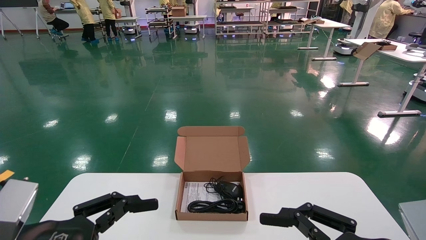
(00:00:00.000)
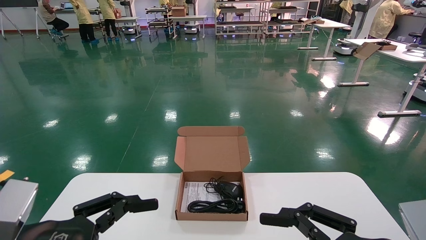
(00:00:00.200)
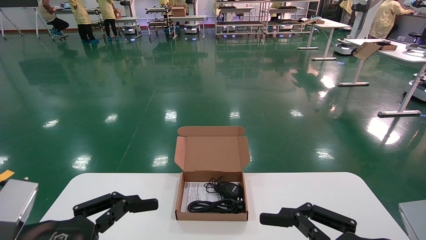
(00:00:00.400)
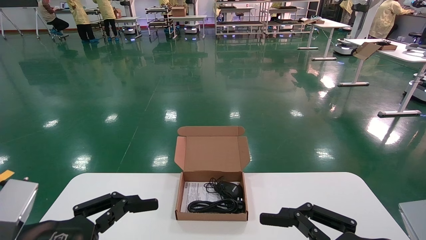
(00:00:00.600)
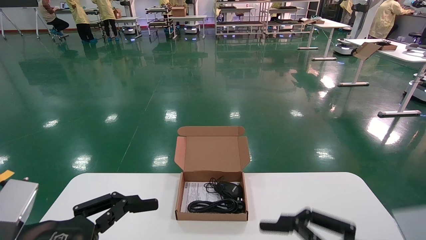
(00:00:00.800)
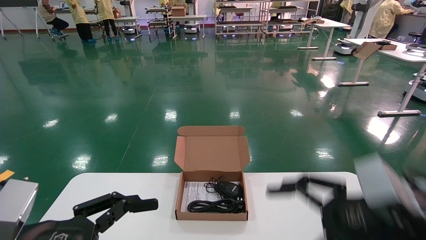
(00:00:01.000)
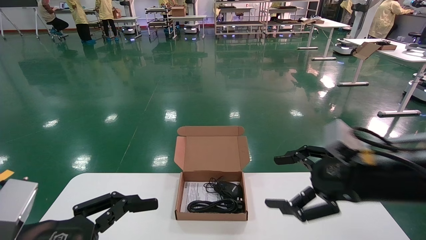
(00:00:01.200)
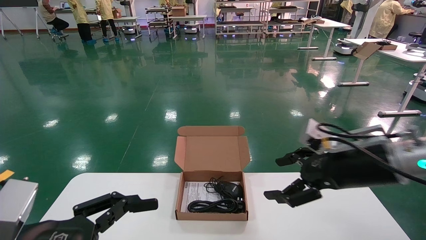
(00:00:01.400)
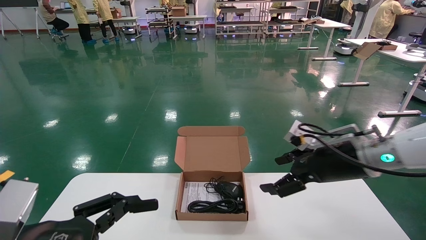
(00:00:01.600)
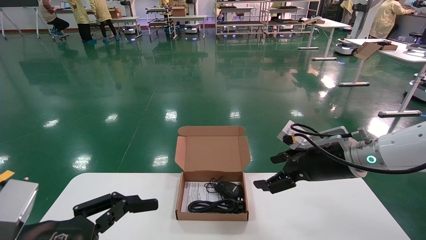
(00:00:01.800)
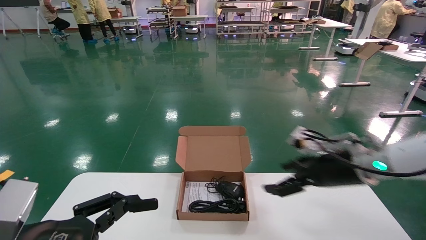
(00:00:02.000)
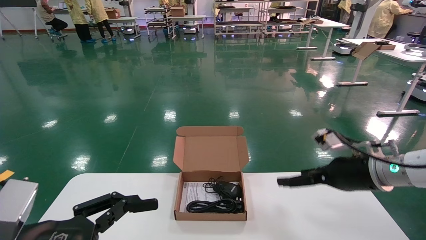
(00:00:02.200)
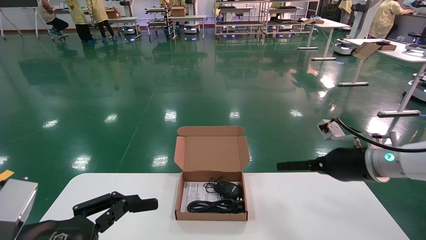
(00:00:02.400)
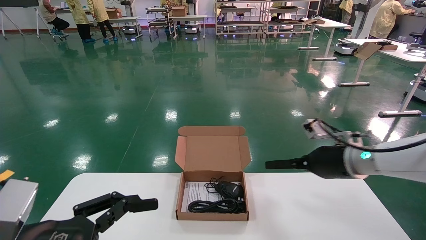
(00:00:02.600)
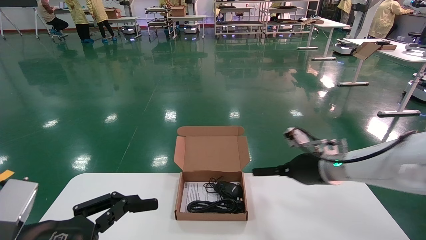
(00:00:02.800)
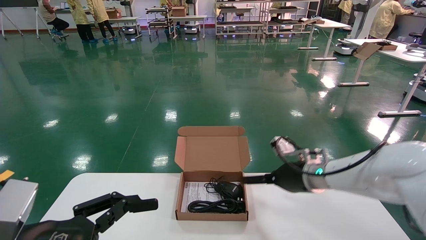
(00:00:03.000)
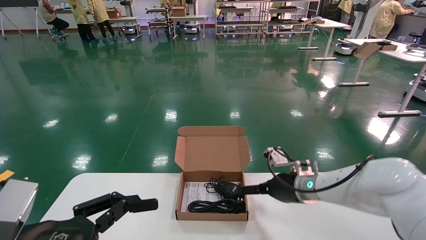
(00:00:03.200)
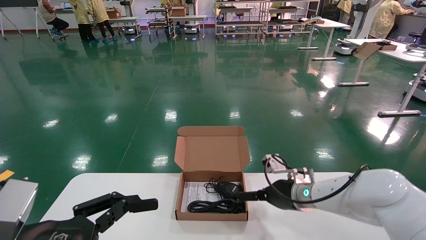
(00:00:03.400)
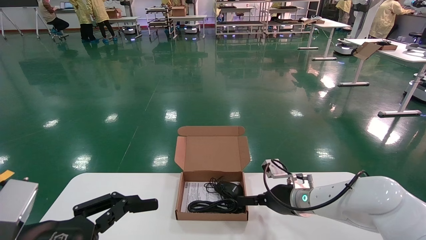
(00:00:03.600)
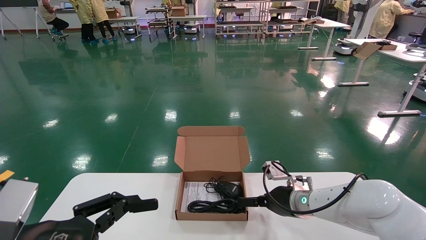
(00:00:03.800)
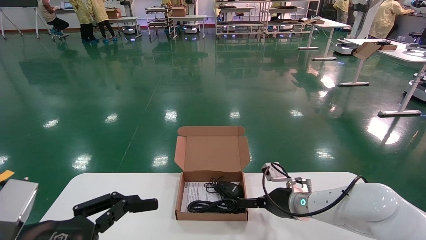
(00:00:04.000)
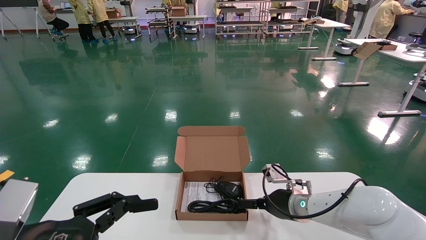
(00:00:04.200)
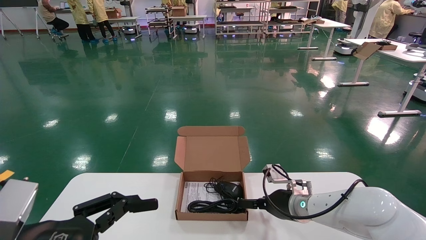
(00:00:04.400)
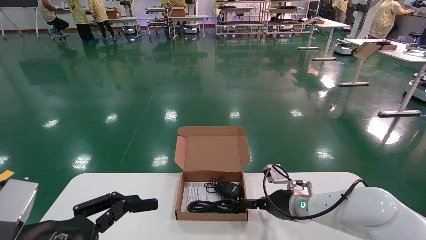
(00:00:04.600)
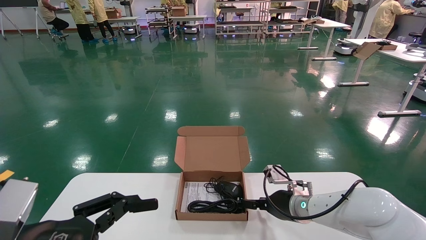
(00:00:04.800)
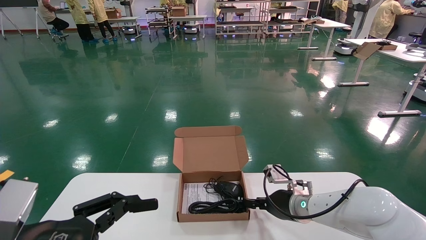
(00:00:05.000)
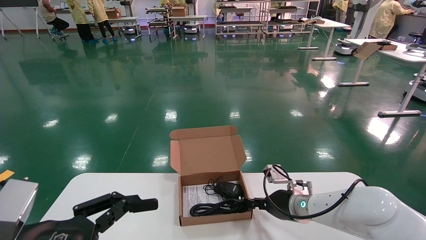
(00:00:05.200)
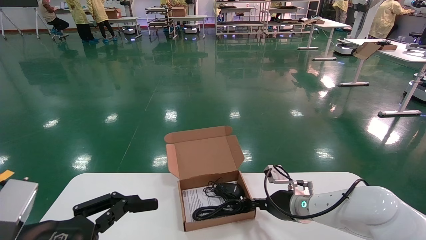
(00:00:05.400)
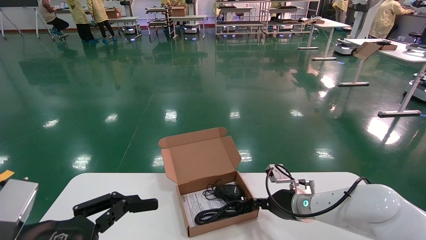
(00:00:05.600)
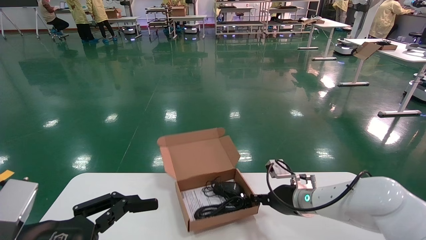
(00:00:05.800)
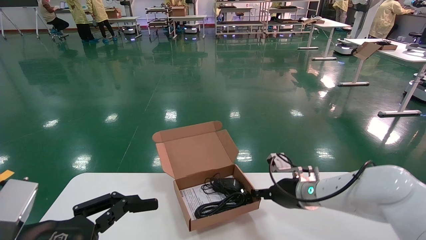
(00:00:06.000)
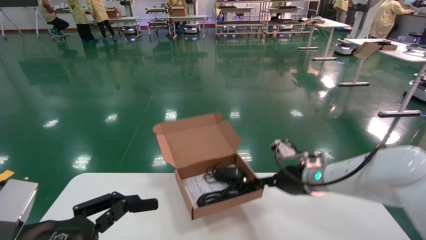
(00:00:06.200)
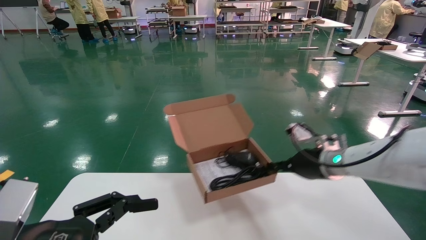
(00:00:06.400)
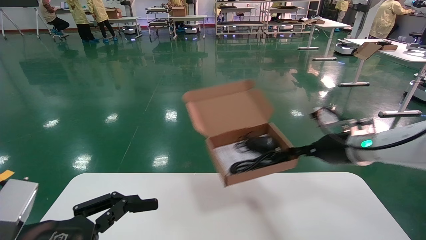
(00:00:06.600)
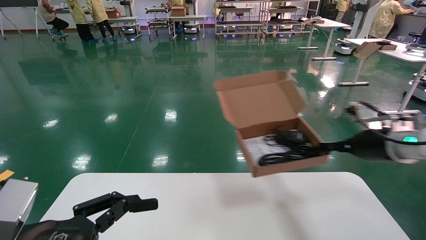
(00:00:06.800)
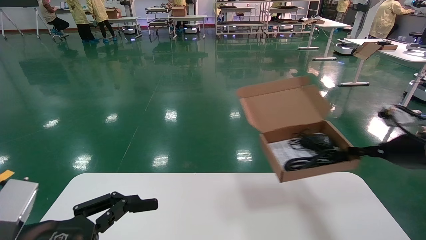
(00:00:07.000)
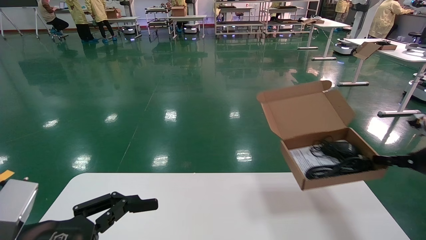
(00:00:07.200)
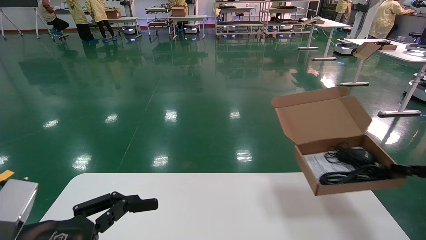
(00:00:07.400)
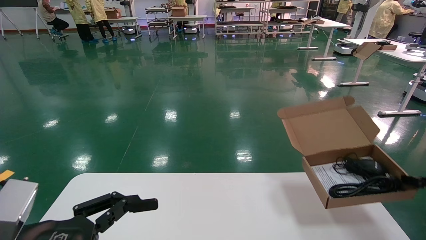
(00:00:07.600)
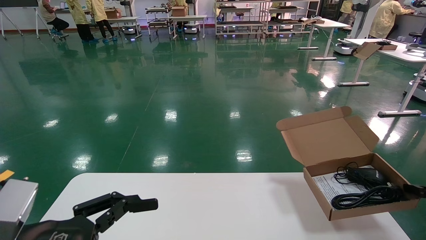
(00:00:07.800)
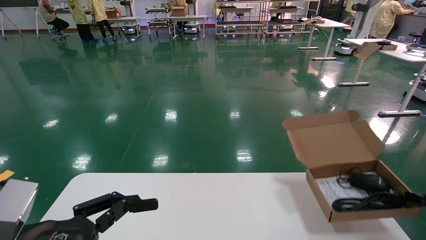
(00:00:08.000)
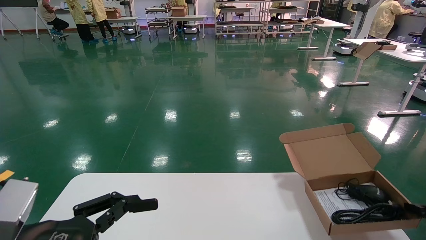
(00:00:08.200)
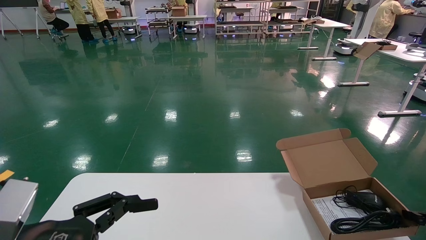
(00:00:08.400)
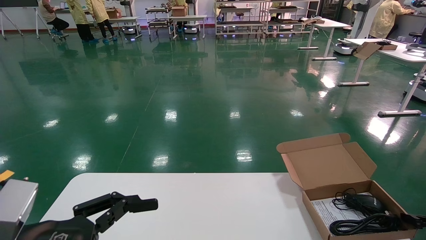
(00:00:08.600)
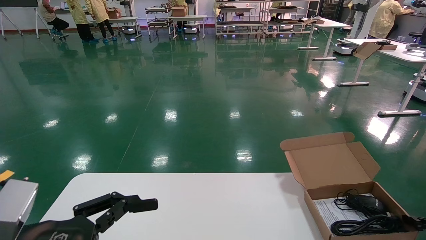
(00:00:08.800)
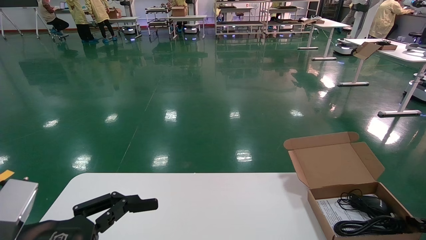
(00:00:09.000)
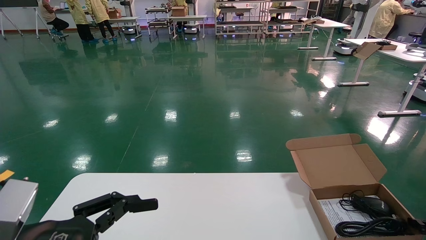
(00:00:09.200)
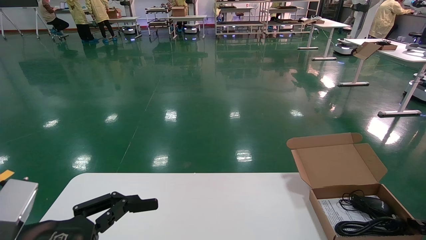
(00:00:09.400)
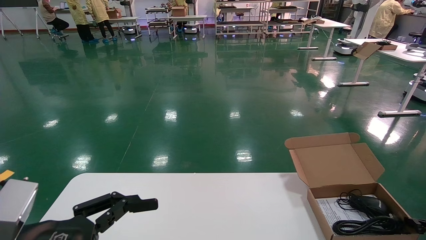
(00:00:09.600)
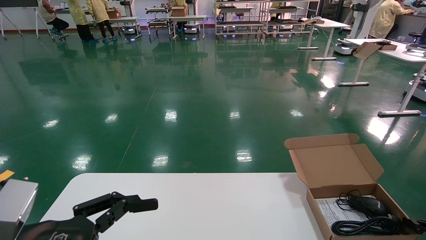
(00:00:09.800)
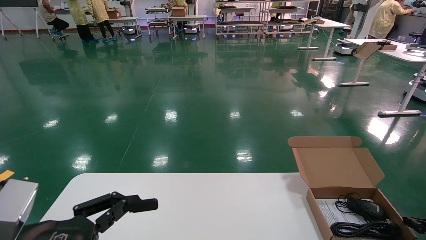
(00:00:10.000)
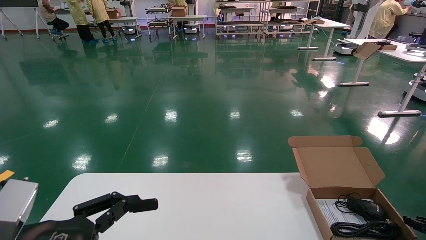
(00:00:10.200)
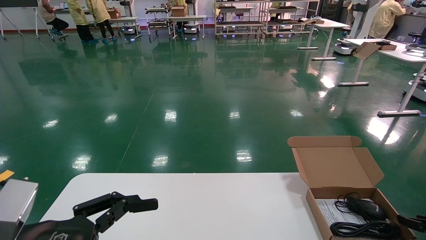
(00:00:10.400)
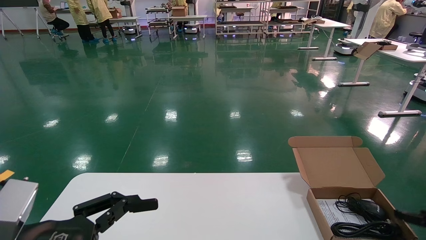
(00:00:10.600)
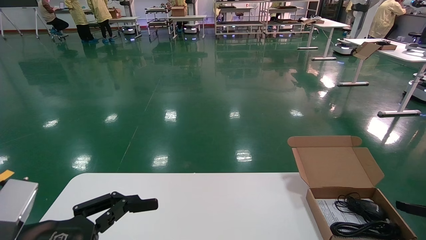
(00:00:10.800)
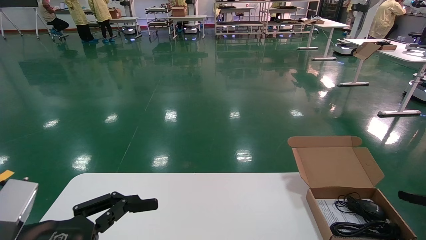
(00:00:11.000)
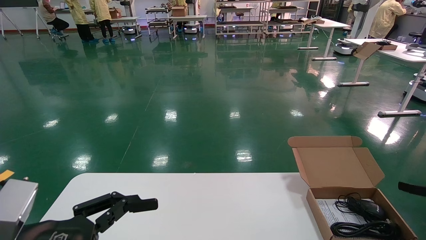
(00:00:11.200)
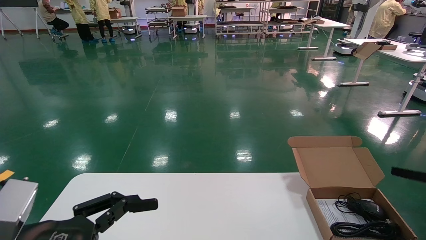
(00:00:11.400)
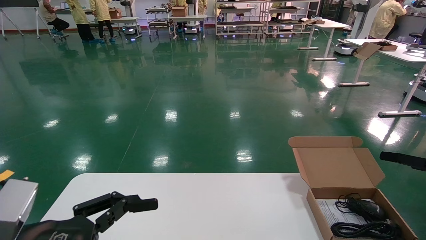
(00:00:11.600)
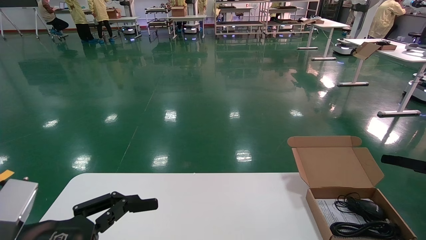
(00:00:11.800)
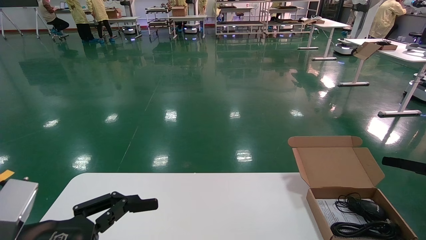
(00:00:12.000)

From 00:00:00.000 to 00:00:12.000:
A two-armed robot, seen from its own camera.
Task of the whole recording: move the position of the storage box with accessories on the table.
Step, from 00:00:01.200 to 00:00:05.800: Grab and pick up the open mouse box from the accessory packaging area.
Step, from 00:00:06.000 to 00:00:10.200: Place the open mouse box onto the operation table.
From 00:00:00.000 to 00:00:01.600: The right gripper travels forward and upward by roughly 20 cm.
From 00:00:01.600 to 00:00:03.000: The right gripper moves forward, downward and to the left, roughly 15 cm.
From 00:00:03.000 to 00:00:04.400: The right gripper travels downward by roughly 5 cm.
From 00:00:04.400 to 00:00:06.000: The right gripper closes up.
From 00:00:06.000 to 00:00:07.600: The right gripper shifts about 30 cm to the right.
From 00:00:07.600 to 00:00:09.000: The right gripper moves downward, some 10 cm.
From 00:00:09.000 to 00:00:10.400: Both grippers stay about where they are.
From 00:00:10.400 to 00:00:12.000: The right gripper moves upward, roughly 10 cm, and opens its fingers.

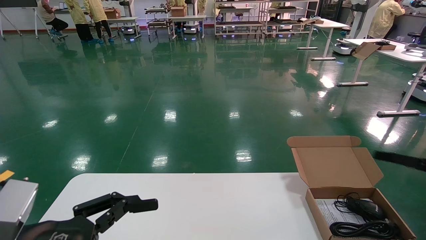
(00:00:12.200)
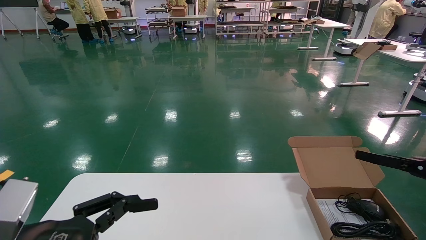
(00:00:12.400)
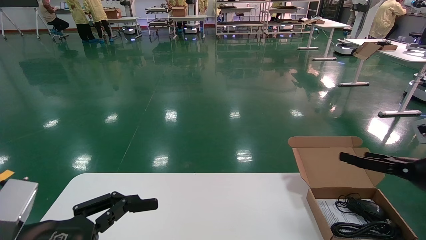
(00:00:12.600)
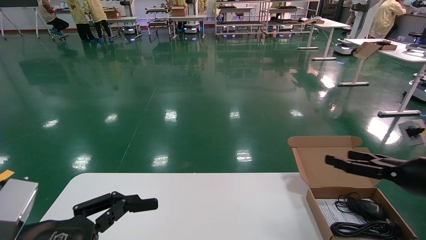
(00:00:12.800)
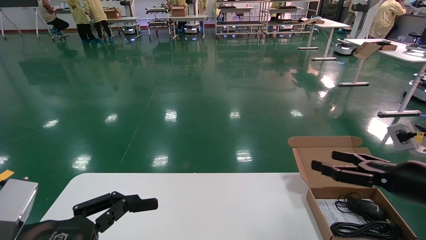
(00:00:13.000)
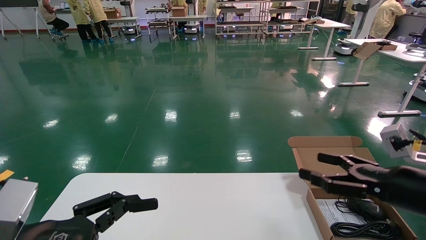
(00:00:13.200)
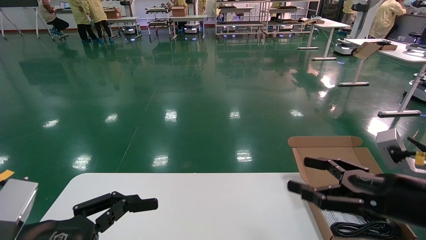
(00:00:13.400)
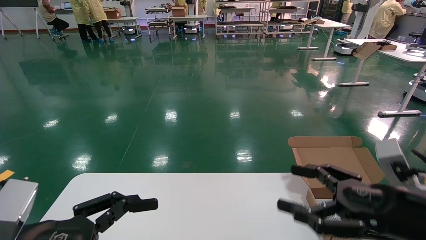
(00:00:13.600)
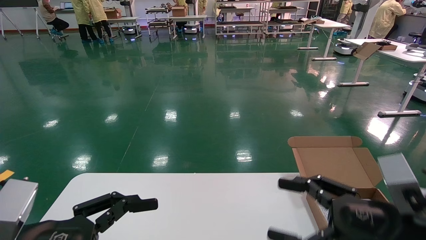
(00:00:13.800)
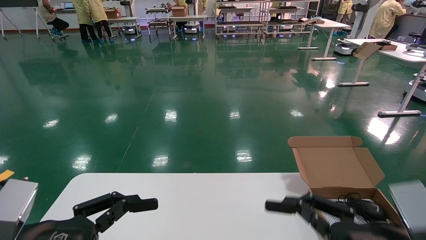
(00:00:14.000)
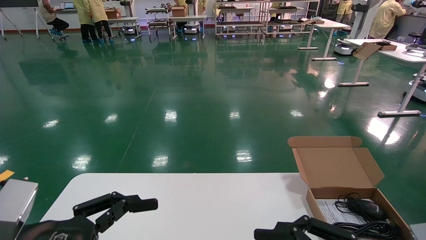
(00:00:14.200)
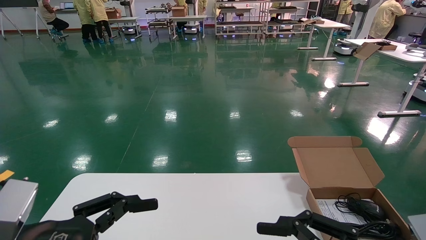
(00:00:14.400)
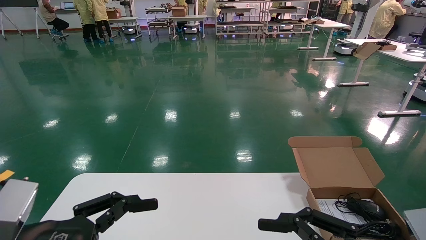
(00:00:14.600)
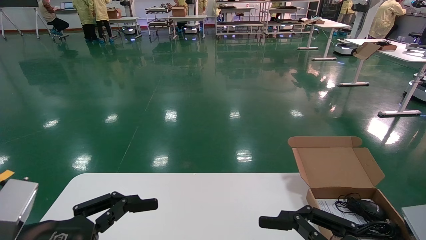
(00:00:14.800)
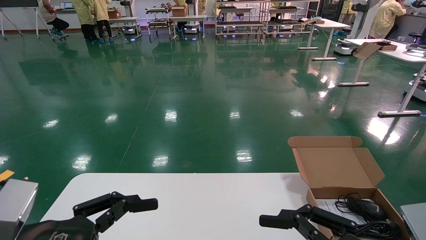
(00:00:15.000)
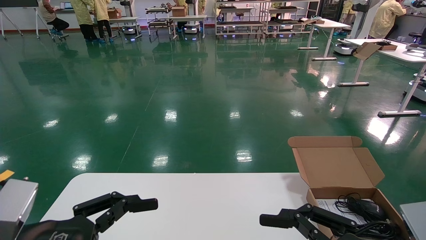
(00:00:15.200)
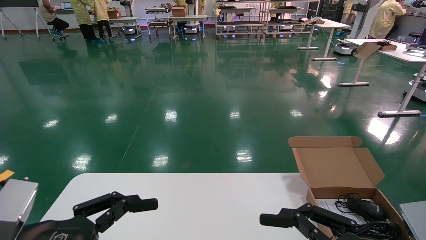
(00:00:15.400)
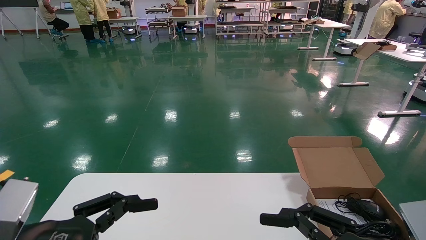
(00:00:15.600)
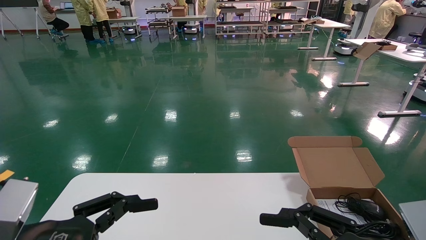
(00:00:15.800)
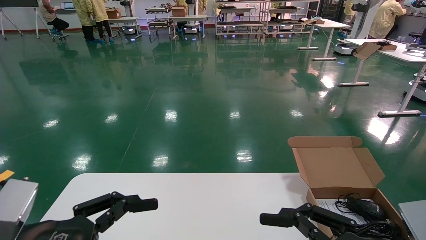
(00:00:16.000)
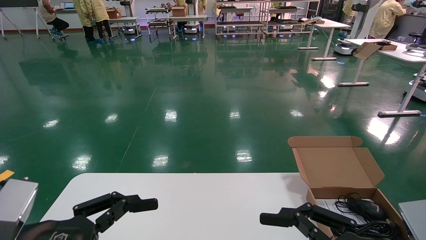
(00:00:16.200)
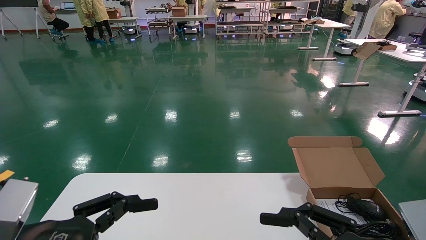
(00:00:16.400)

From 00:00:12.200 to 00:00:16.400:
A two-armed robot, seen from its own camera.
Task of the whole recording: move the position of the storage box with accessories on the table.
From 00:00:12.200 to 00:00:13.600: The right gripper is displaced to the left and backward by some 20 cm.
From 00:00:13.600 to 00:00:15.000: The right gripper goes approximately 10 cm backward.
From 00:00:15.000 to 00:00:16.400: Both grippers stay about where they are.
